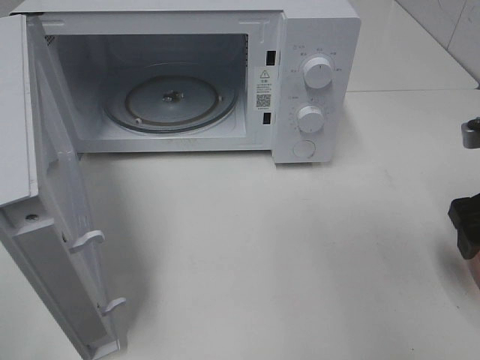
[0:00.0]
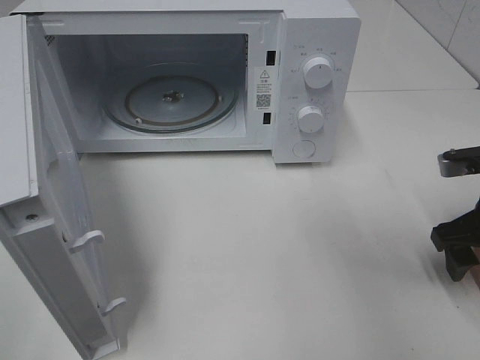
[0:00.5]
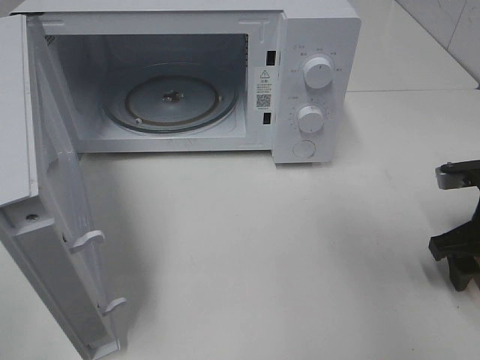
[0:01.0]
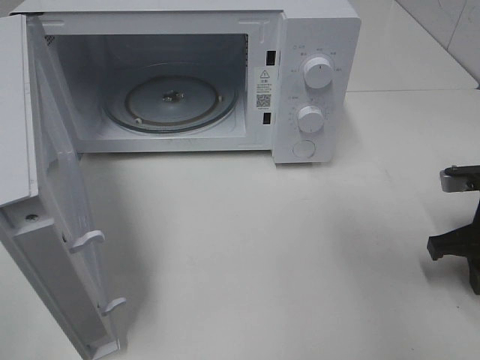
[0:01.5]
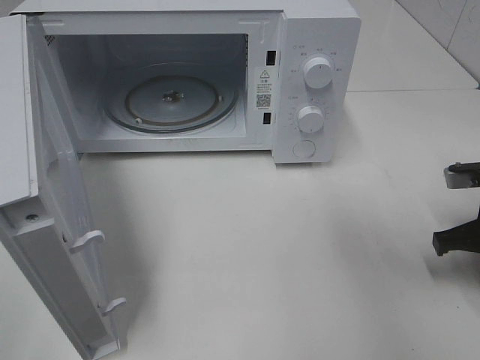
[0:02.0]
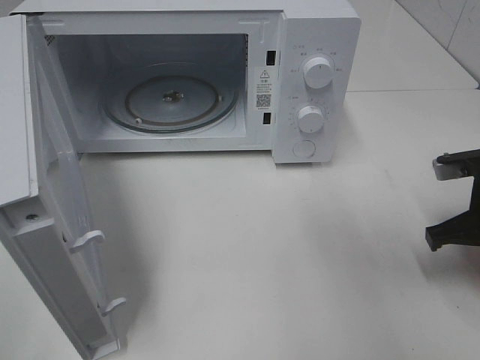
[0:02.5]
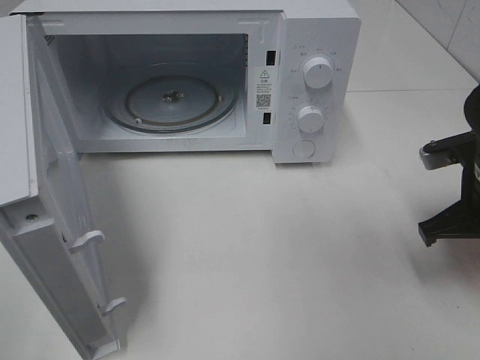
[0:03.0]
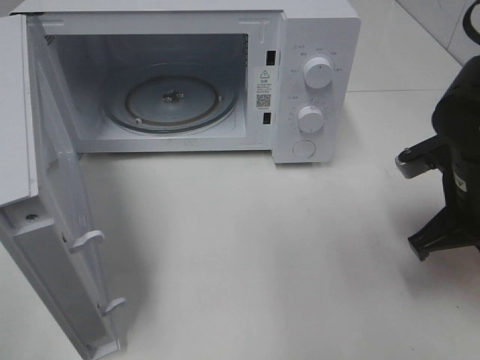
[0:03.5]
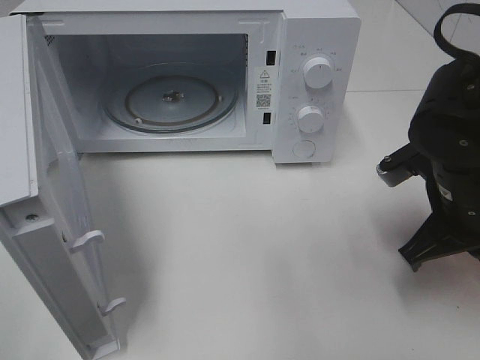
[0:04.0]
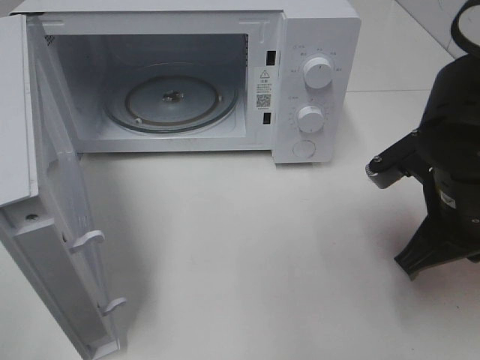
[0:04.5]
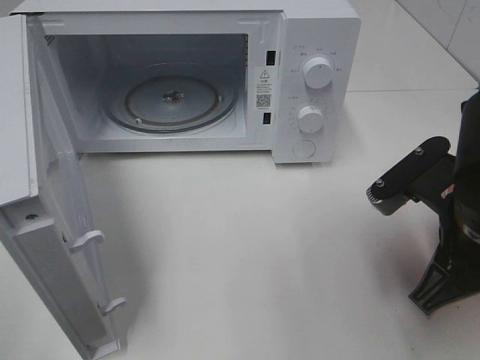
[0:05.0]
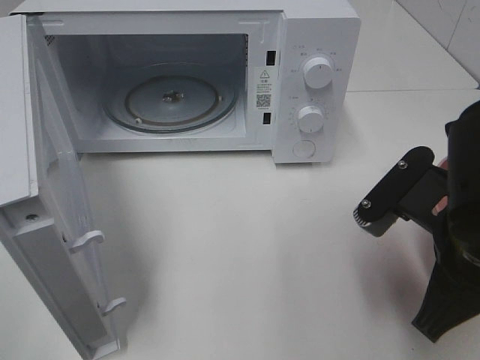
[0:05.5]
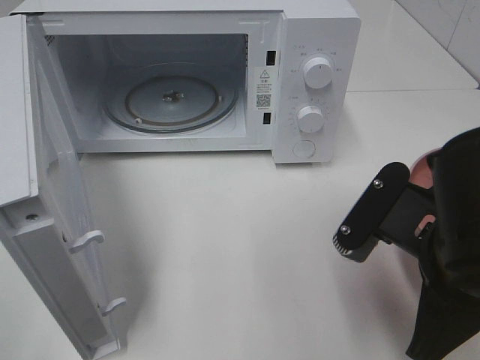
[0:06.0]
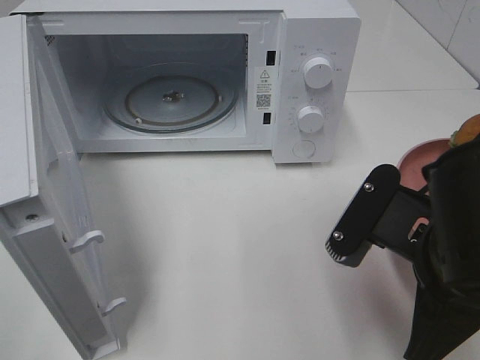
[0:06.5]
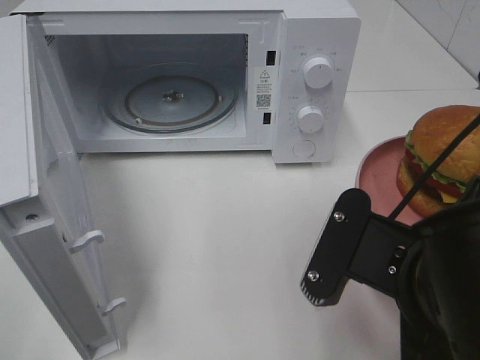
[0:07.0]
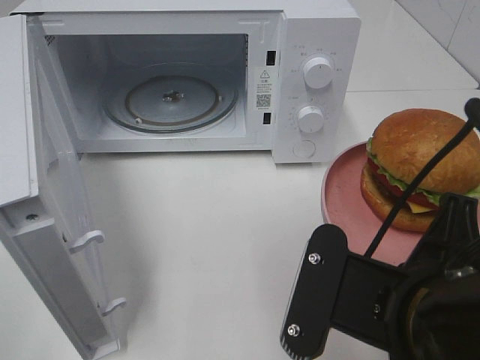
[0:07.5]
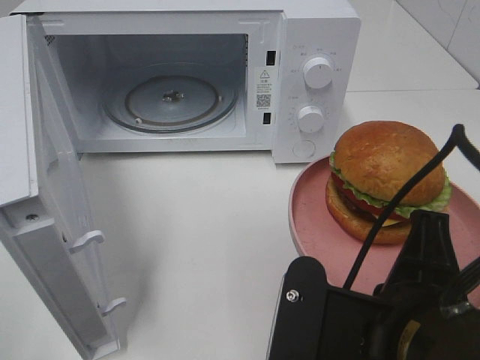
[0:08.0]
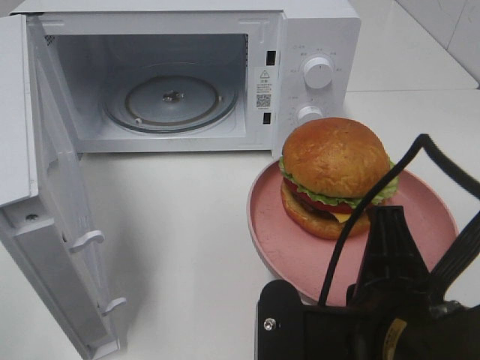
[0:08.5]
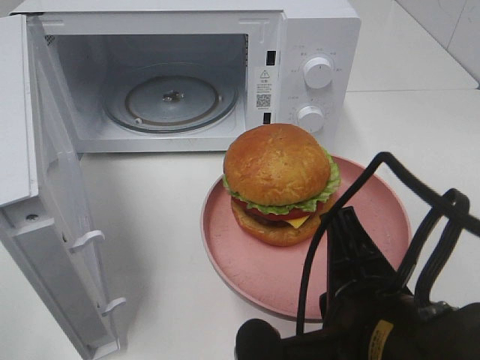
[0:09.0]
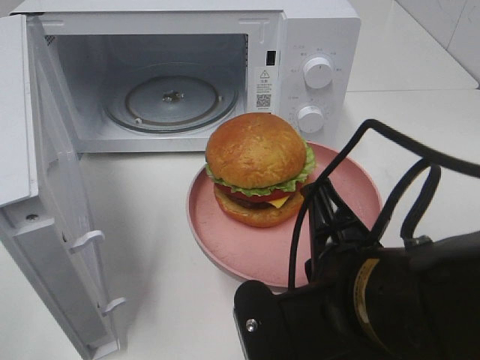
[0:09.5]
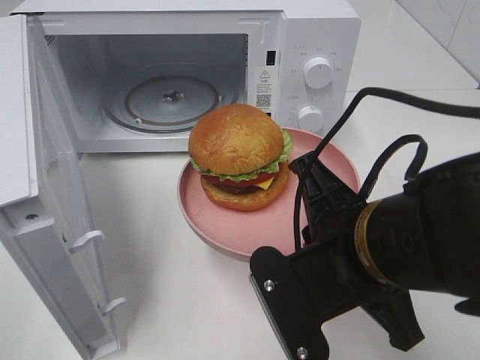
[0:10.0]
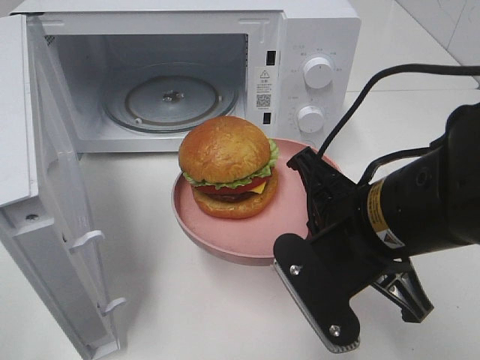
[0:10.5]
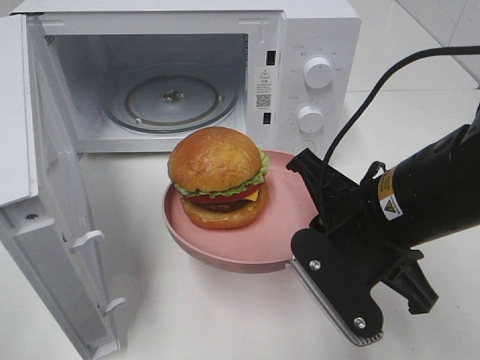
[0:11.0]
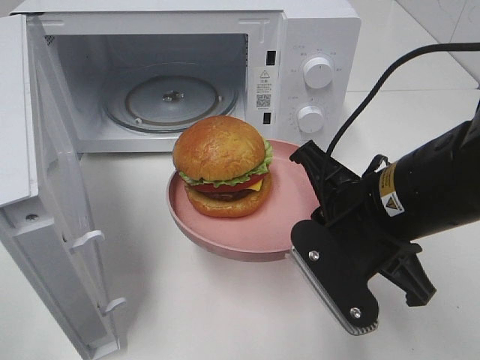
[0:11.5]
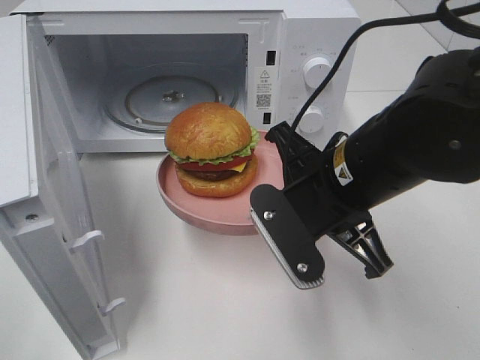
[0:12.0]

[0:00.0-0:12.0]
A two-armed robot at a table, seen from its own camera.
Task of the whole recording: Heat the burger.
Step, 0:00.0 to 0:02.0: Right hand: grab the plate with the hamburger.
0:00.0 to 0:02.0: The right gripper is displaced downward by roughly 5 cm, and closes.
0:02.0 to 0:04.0: The right gripper travels to the left by roughly 10 cm.
0:04.0 to 0:06.0: The right gripper heads backward and to the left, covering approximately 10 cm.
0:06.0 to 0:08.0: The right gripper heads backward and to the left, covering about 10 cm.
0:08.0 to 0:10.0: The right gripper is displaced forward by roughly 10 cm.
0:10.0 to 0:12.0: The right gripper shifts some 5 cm forward.

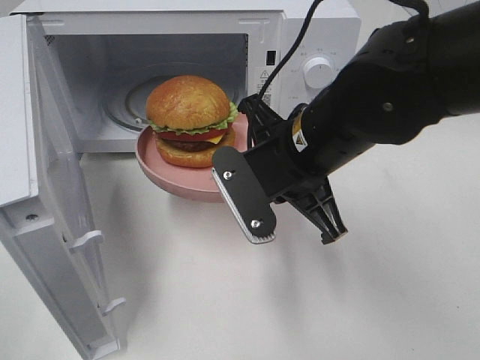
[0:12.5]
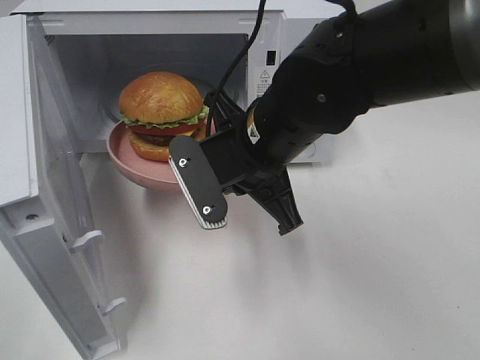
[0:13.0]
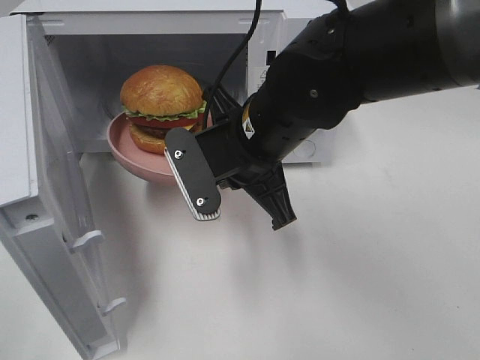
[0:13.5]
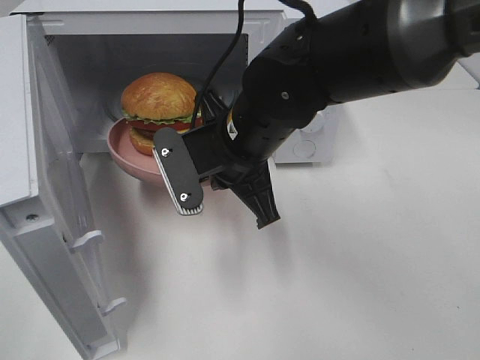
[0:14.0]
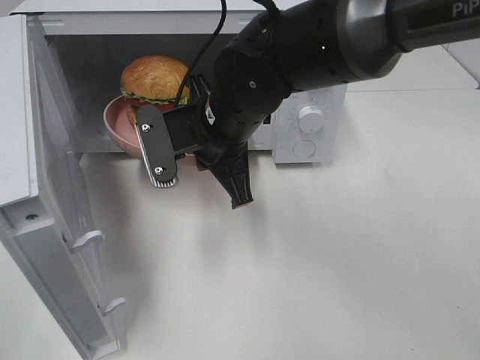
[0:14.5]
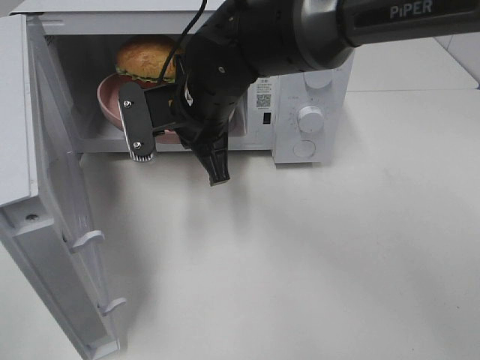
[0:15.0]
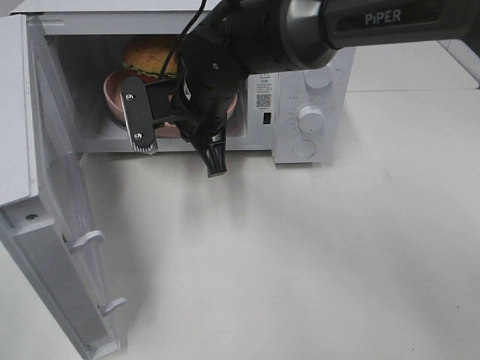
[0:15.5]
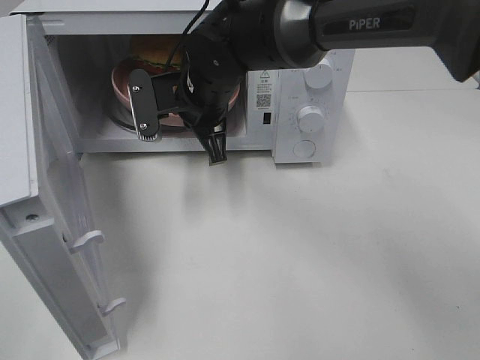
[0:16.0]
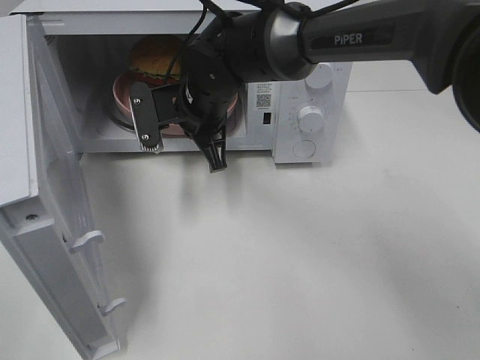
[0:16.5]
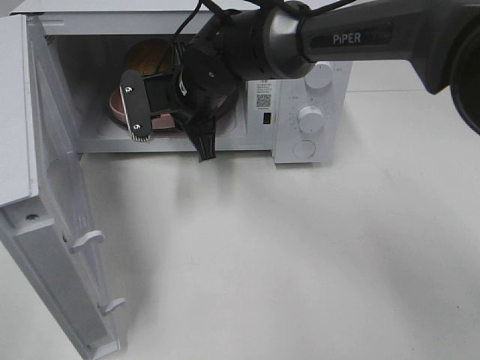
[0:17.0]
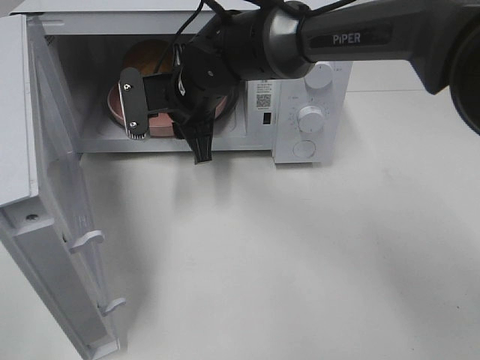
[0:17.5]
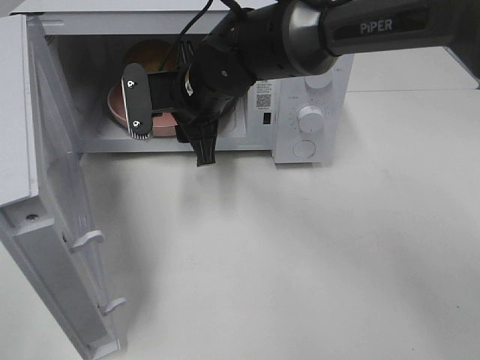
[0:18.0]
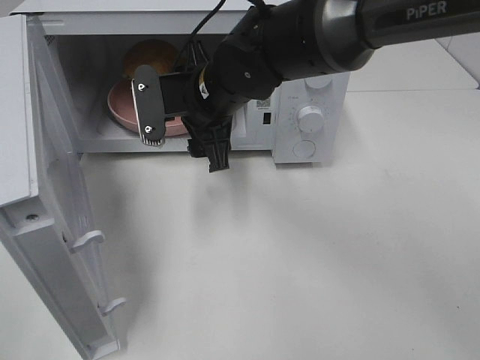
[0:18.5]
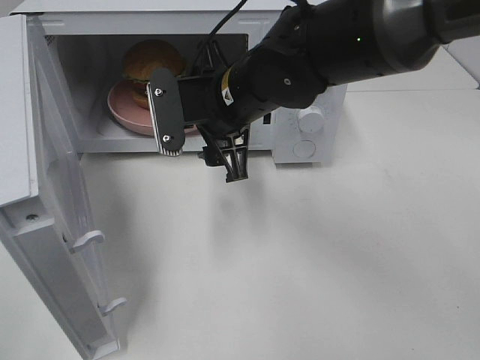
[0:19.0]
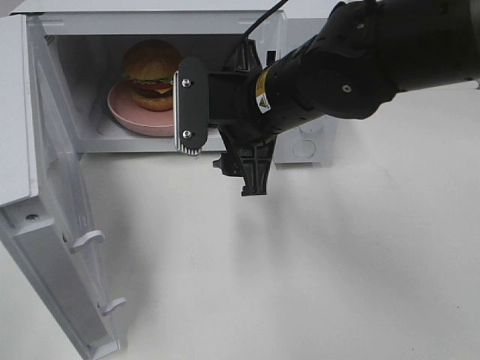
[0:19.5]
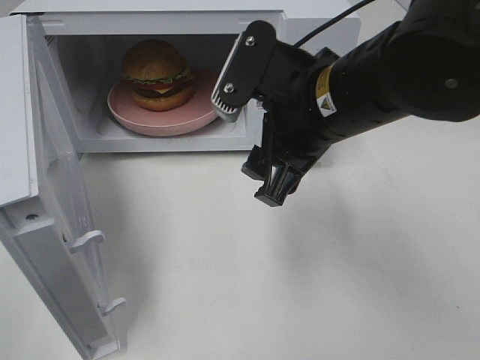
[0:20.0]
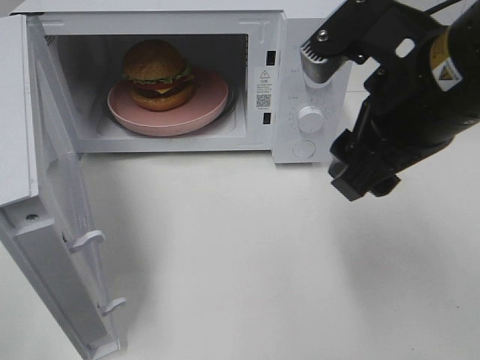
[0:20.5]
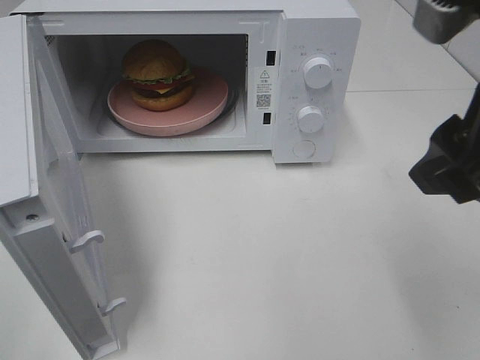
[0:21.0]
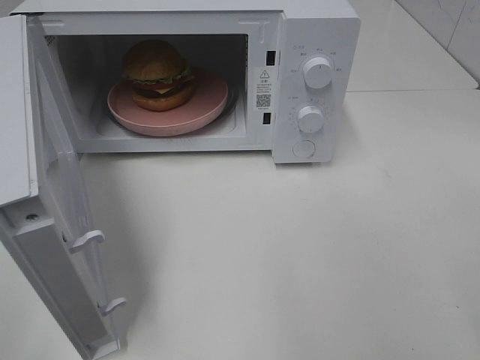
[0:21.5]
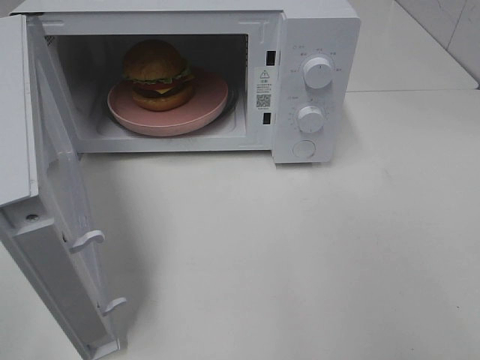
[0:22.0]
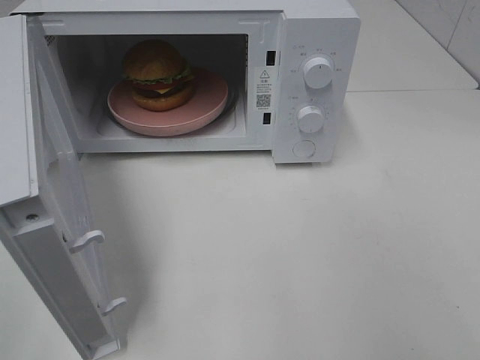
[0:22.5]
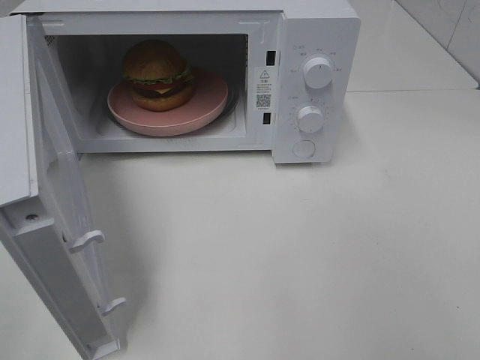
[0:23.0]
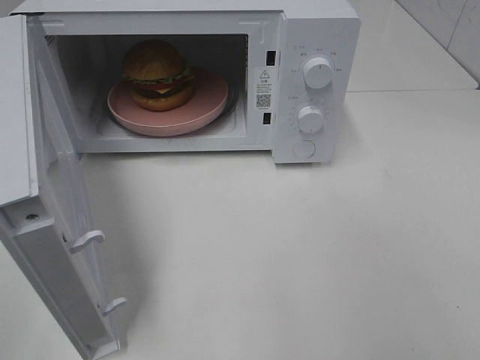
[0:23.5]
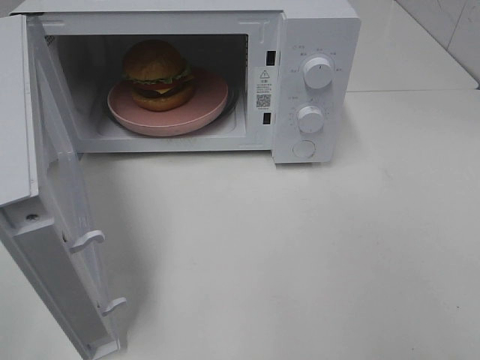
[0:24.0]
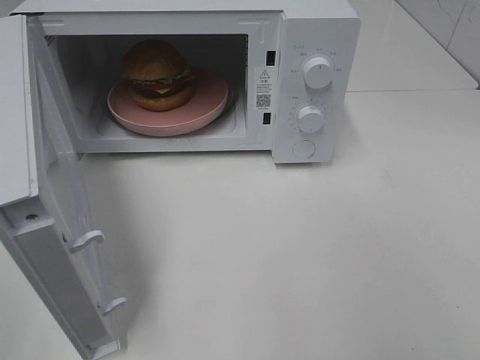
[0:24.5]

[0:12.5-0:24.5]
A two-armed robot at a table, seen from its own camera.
Task of the whole recording: Heat the burger.
Step, 0:12.5 to 0:17.0: Right hand: place the plate in the microwave.
0:12.5 to 0:14.5: The right gripper heads to the left and forward, covering about 10 cm.
0:14.5 to 0:16.5: The right gripper shifts approximately 10 cm forward.
0:16.5 to 0:18.5: The right gripper opens its fingers.
0:18.5 to 0:20.5: The right gripper moves to the right, backward and upward, about 25 cm.
0:20.5 to 0:22.5: The right gripper shifts some 25 cm backward and to the right.

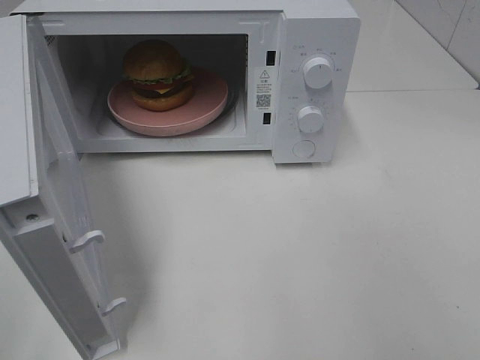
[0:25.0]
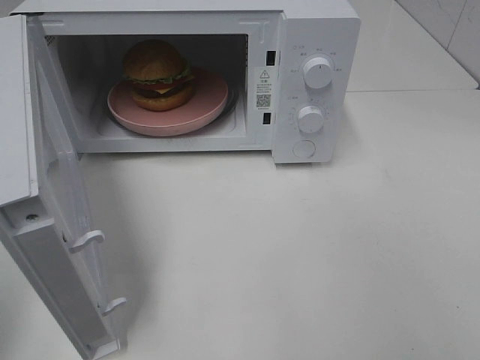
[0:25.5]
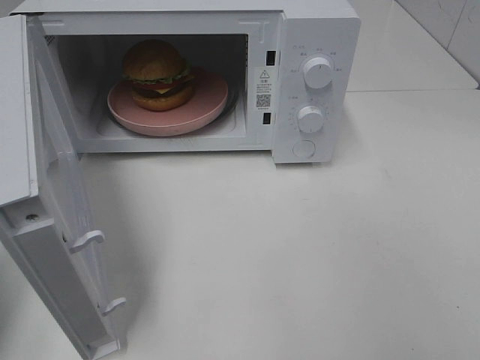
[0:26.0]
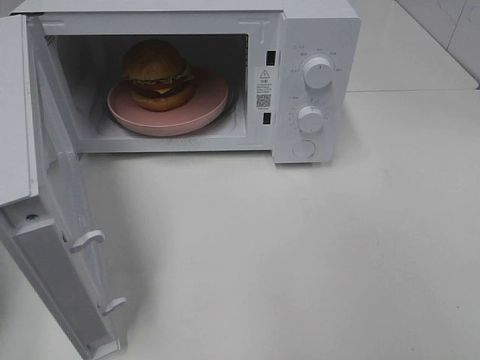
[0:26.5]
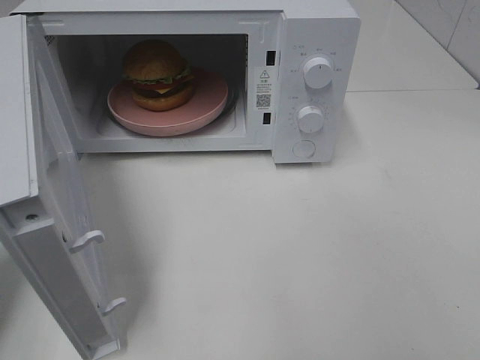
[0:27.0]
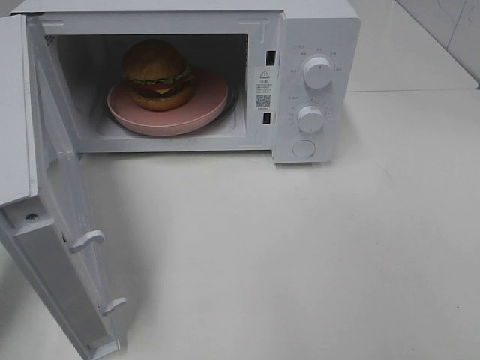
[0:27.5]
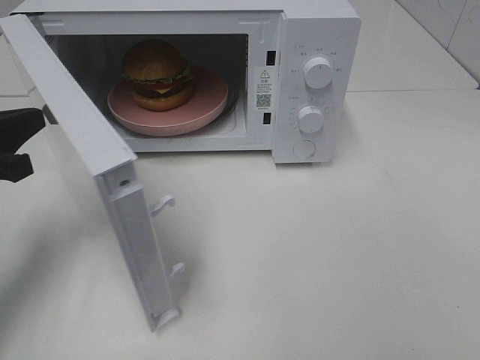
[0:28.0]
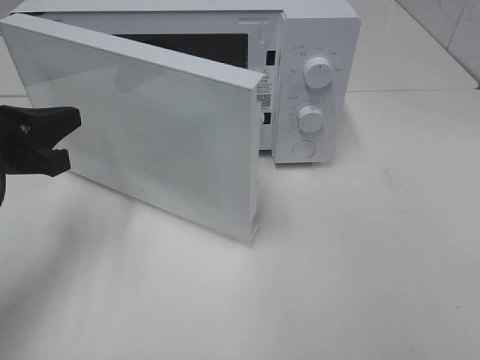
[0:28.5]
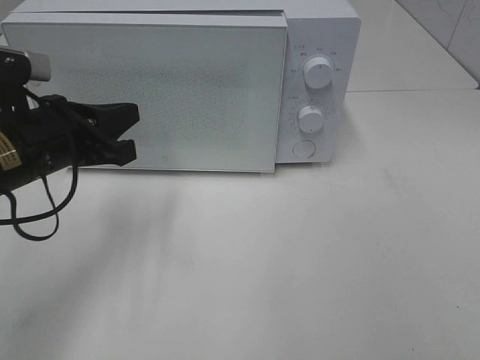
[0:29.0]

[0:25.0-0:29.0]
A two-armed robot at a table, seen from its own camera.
Task of the whole recording: Heat the burger.
0:25.0 to 0:27.0: The left gripper travels forward and downward by approximately 20 cm, and closes up.
0:27.0 to 0:29.0: The left gripper travels to the right and forward by roughly 15 cm.
